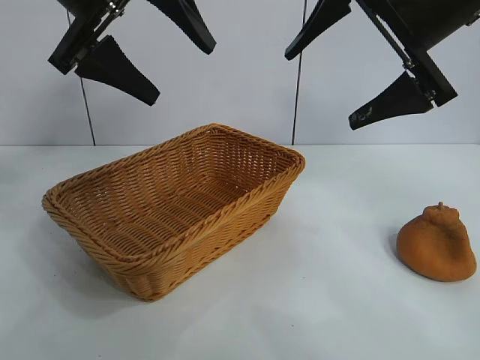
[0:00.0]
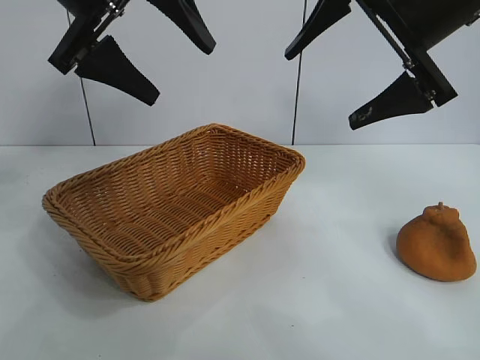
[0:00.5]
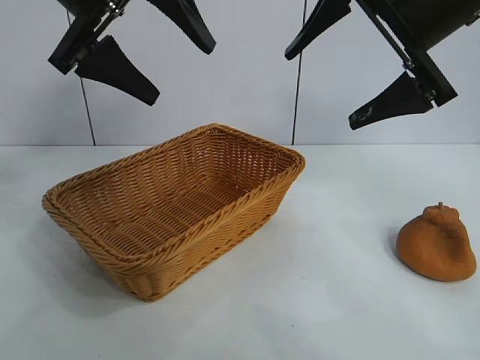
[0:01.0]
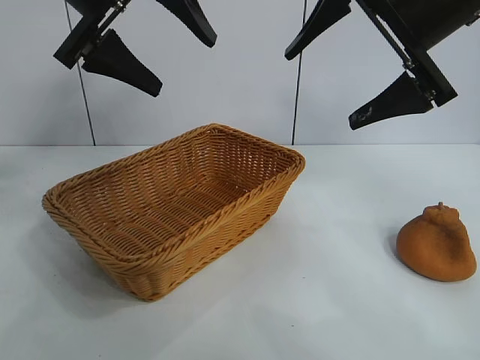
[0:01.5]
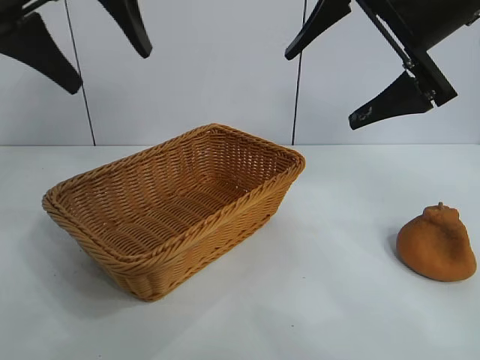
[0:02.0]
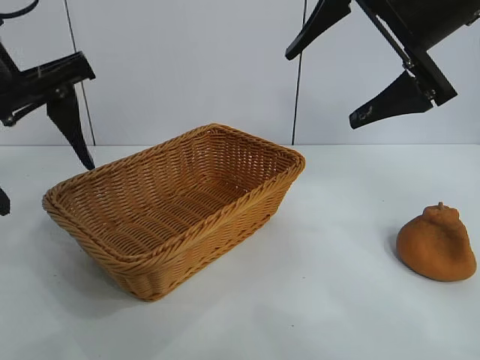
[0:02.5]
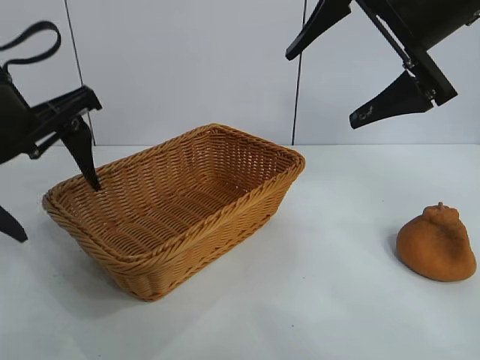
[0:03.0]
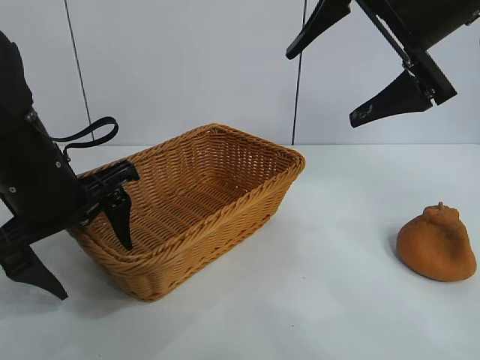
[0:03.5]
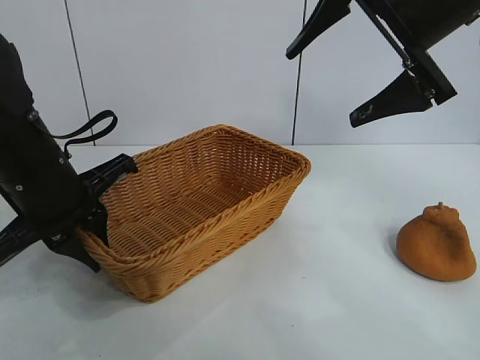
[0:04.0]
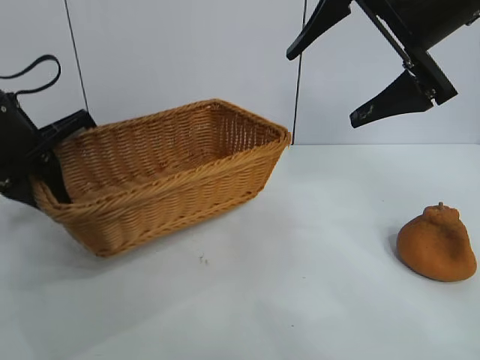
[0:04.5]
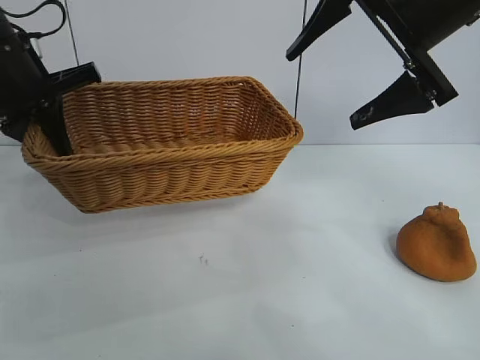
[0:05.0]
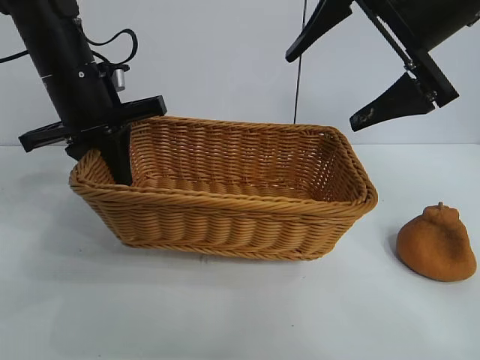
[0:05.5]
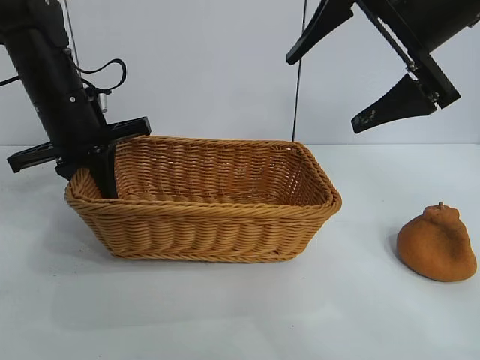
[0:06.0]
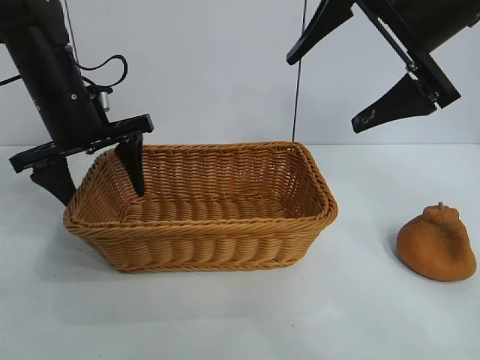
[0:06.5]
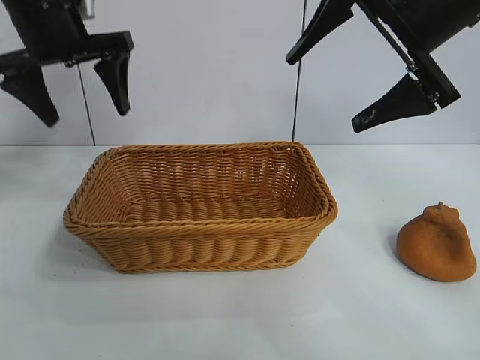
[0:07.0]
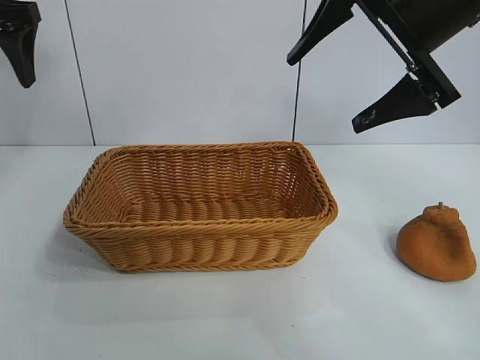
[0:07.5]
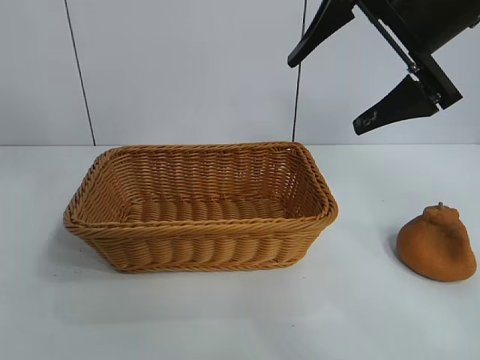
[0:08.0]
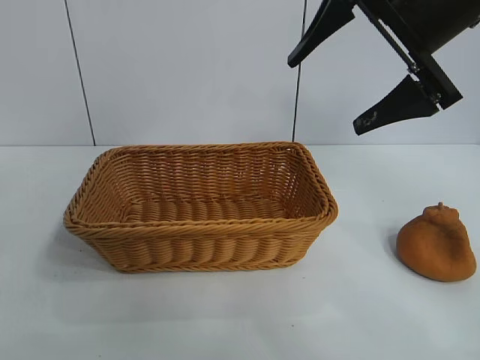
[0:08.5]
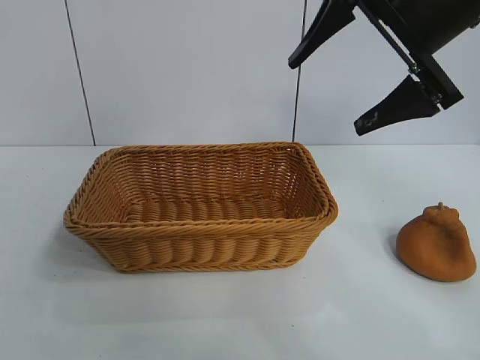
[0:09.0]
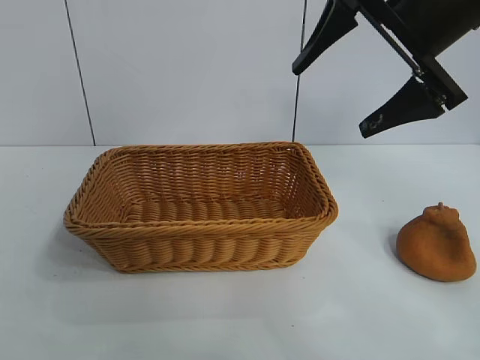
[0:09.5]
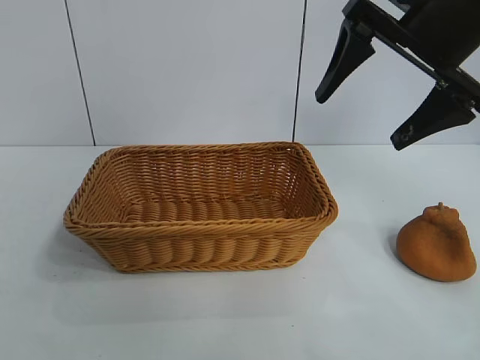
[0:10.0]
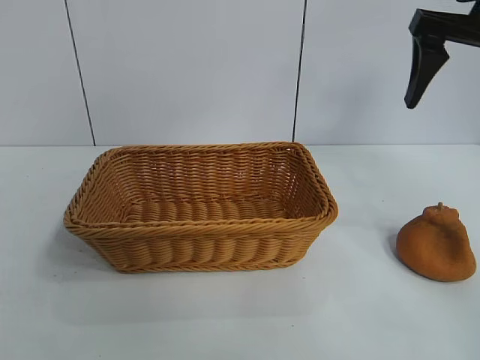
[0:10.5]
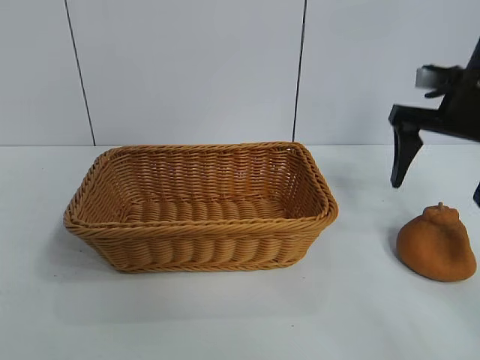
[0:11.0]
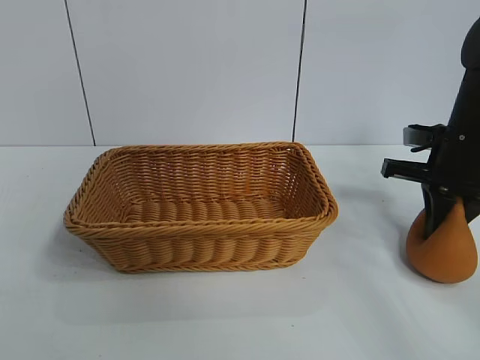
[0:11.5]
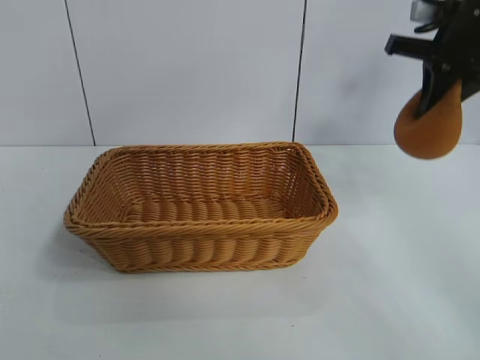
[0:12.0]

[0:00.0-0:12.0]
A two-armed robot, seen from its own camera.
Task of the whole recording: pick up the orange and put it into the basket.
Step, 0:01.5 to 0:04.0: Grasp the basket with left gripper.
Step, 0:04.5 to 0:06.5: Place the basket in the center of view with left gripper.
Step, 0:07.0 to 0:11.0: Grasp the orange with right gripper.

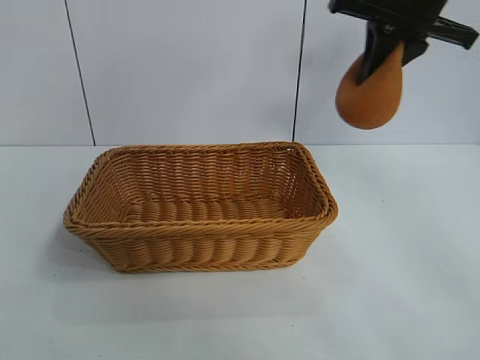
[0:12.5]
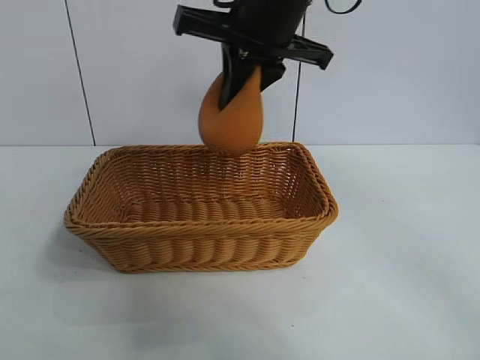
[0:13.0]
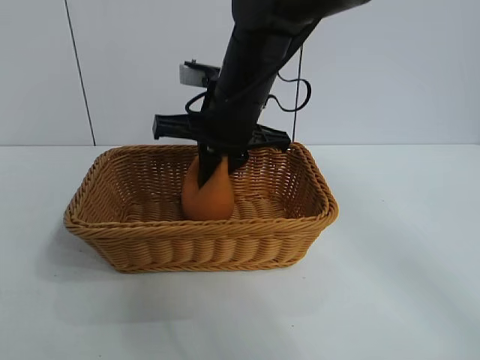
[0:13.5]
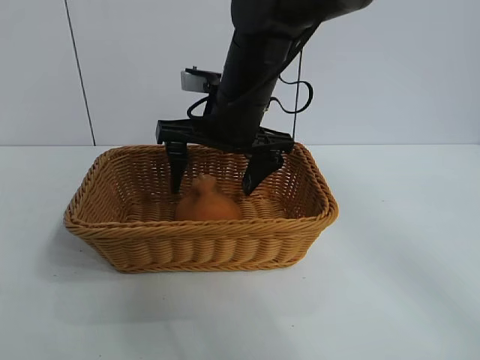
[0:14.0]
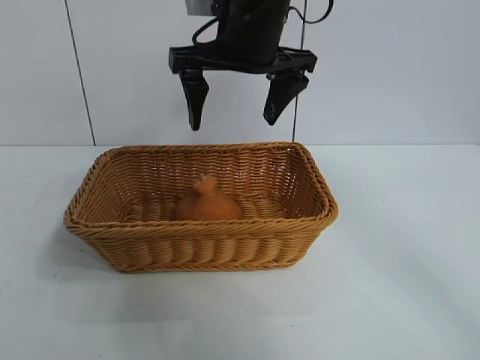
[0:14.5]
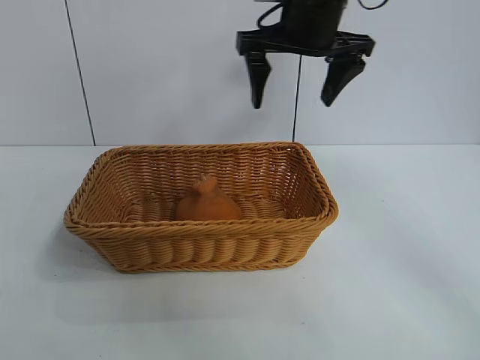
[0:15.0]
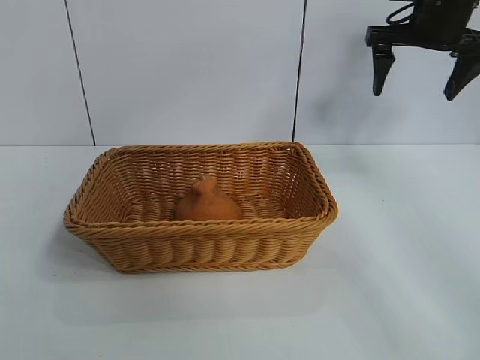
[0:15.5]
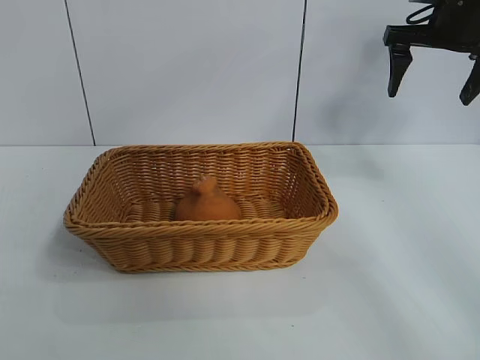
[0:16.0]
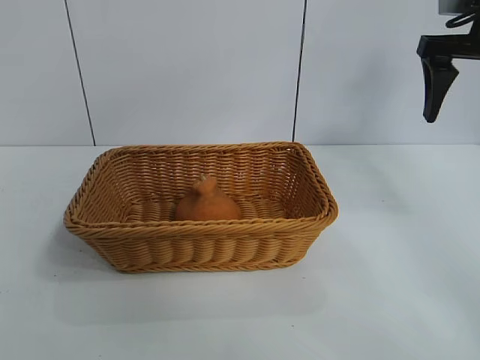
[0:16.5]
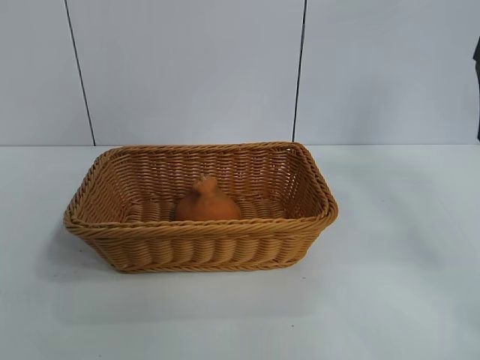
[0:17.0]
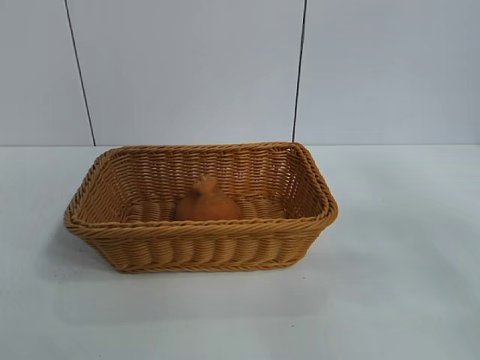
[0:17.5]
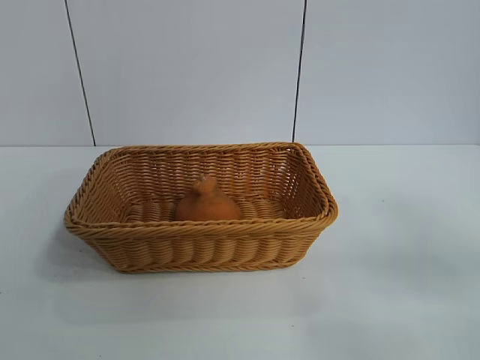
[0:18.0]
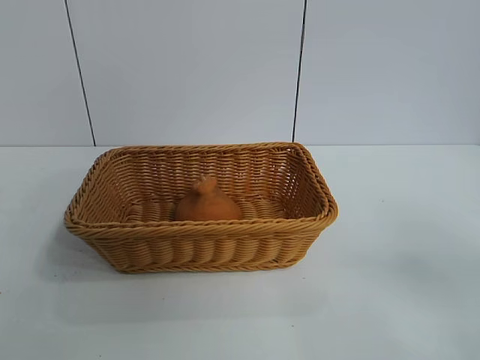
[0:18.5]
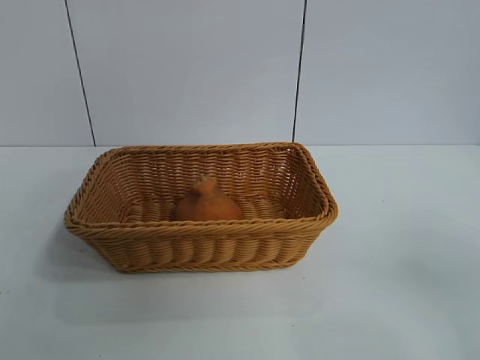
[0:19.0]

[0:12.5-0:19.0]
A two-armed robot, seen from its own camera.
Task of the whole recording: pick up the orange and put it into the basket.
Step, 0:12.5 to 0:14.0: Place the orange in the basket with right gripper.

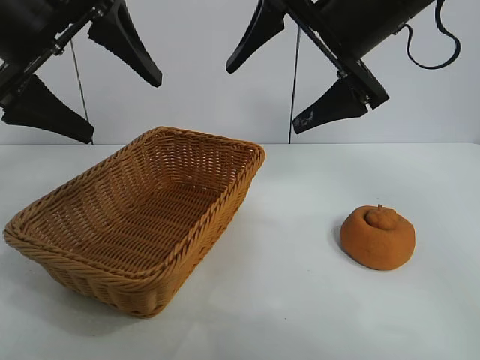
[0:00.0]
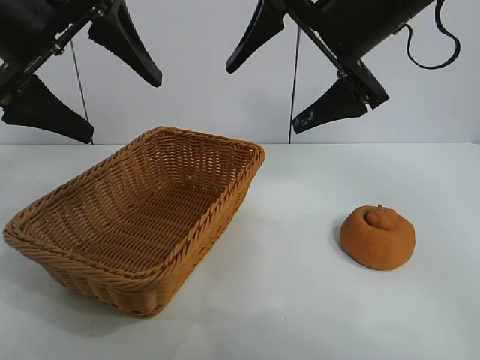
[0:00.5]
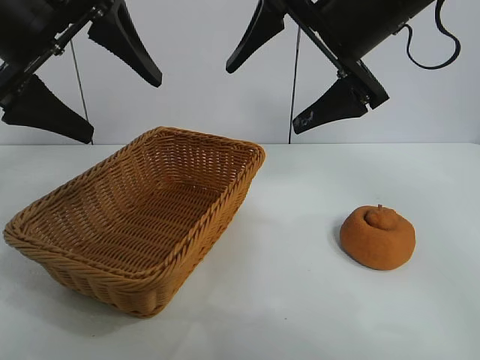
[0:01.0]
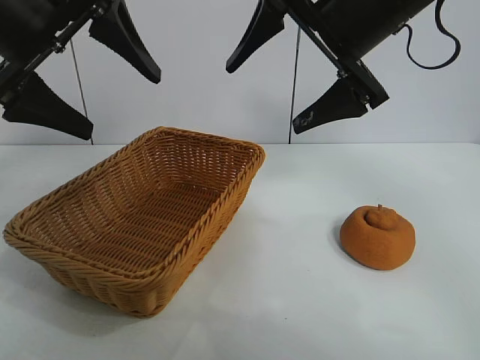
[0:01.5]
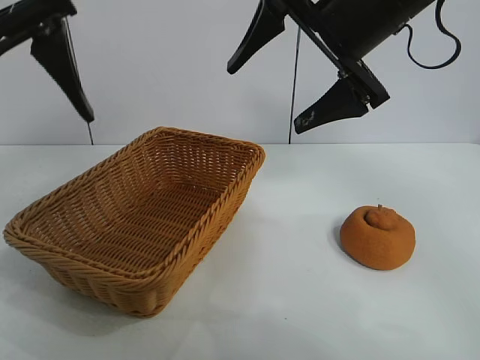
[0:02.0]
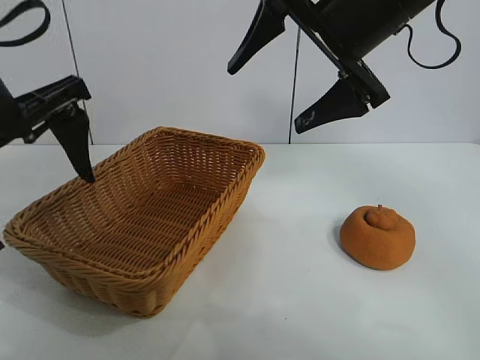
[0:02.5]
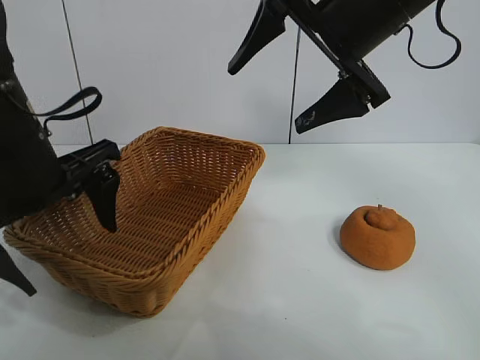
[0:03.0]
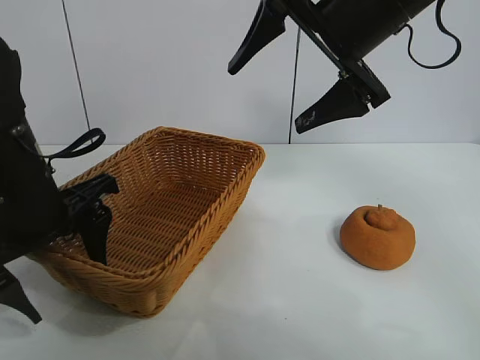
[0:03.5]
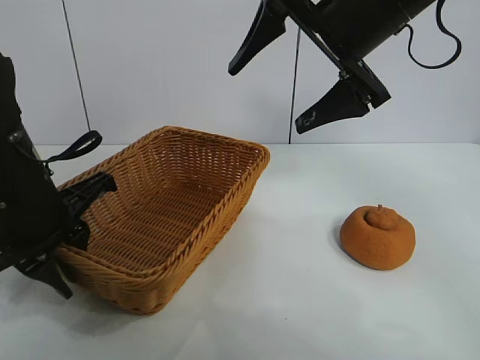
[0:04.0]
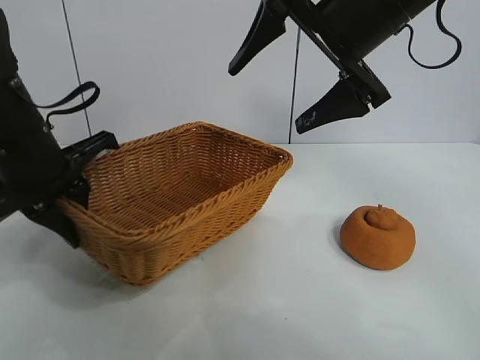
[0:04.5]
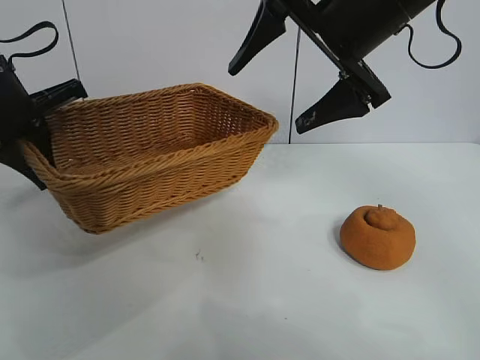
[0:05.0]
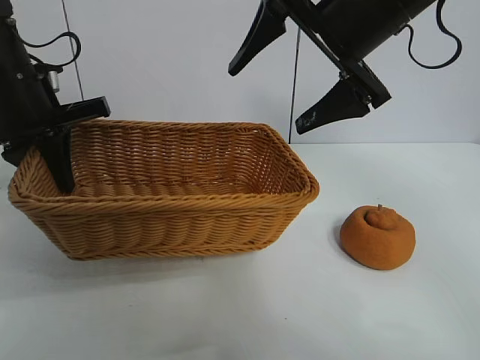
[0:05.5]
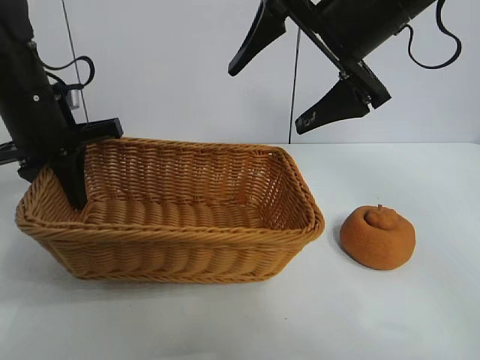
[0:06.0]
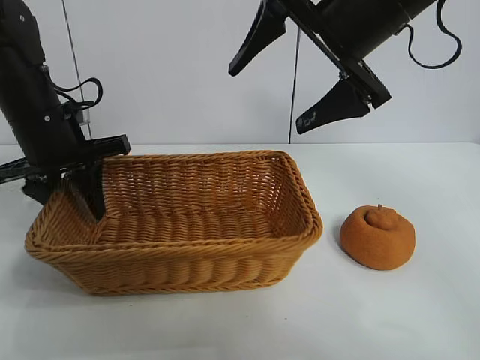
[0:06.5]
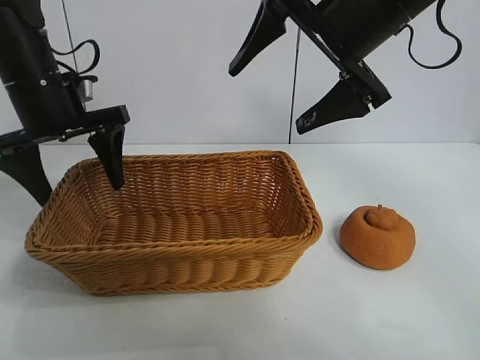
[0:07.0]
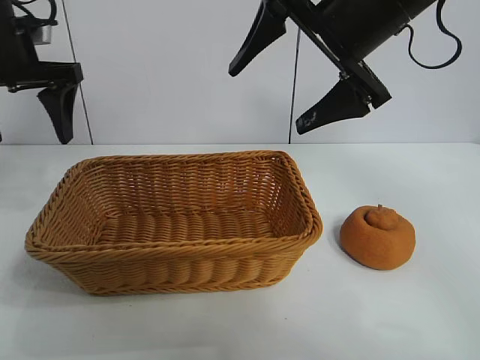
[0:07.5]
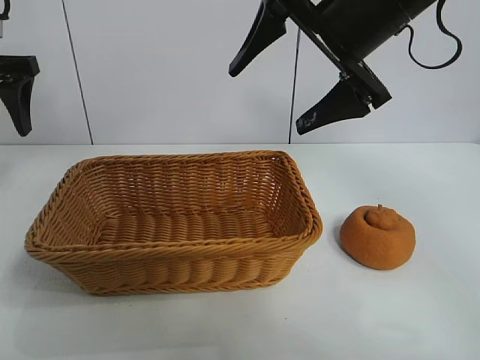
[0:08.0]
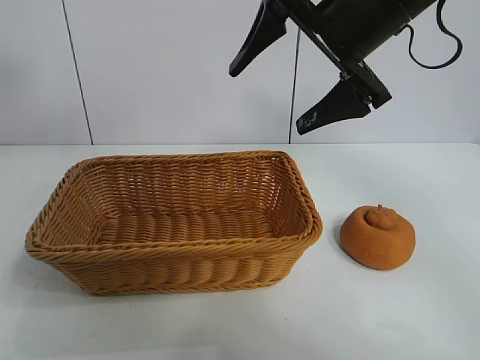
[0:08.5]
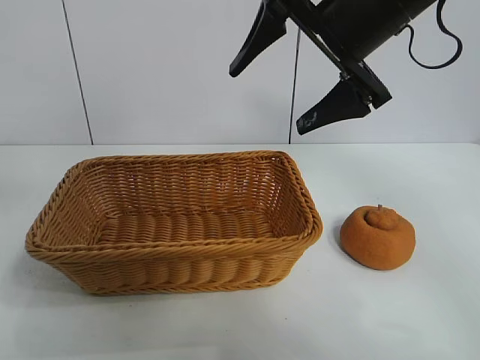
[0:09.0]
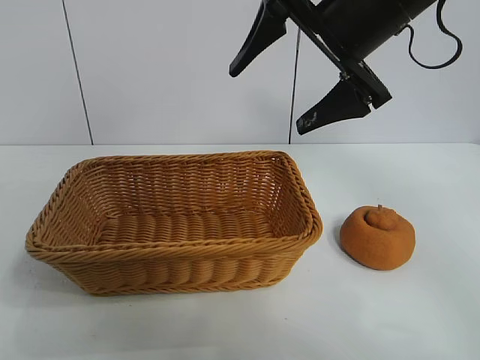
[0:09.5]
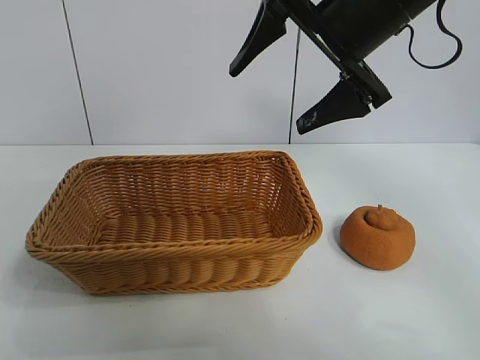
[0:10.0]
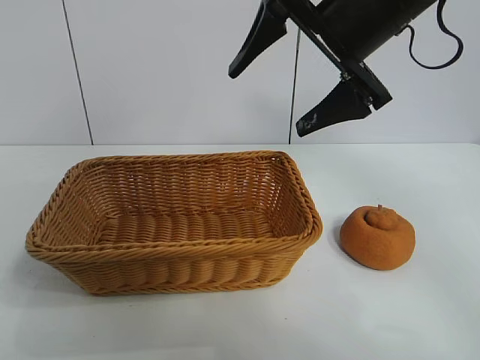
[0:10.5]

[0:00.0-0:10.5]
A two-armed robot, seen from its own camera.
Task of the whole recording: pick up the orange and put it into the basket.
Step, 0:01.5 to 0:04.0: Grasp the basket with left gripper.
Step, 0:04.5 to 0:06.5: Place the basket in the center of view with left gripper.
